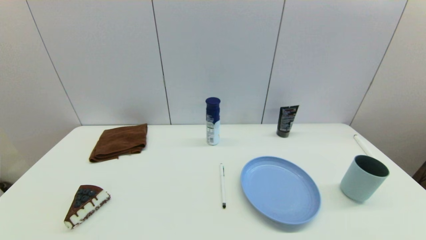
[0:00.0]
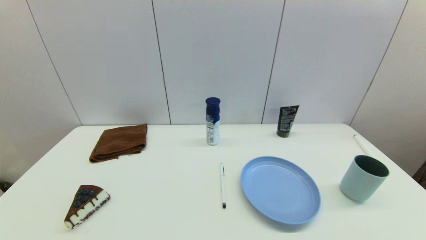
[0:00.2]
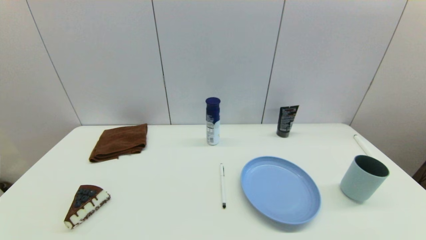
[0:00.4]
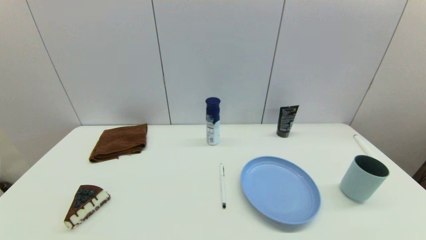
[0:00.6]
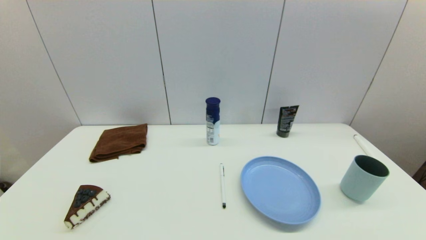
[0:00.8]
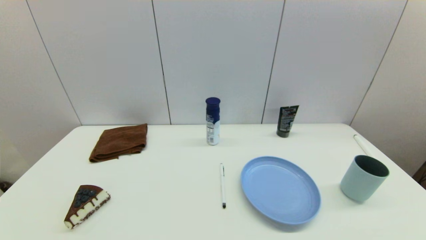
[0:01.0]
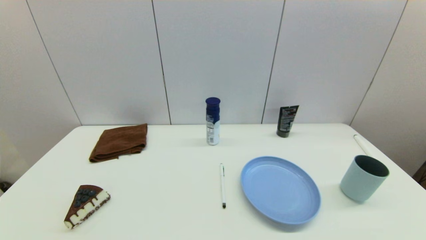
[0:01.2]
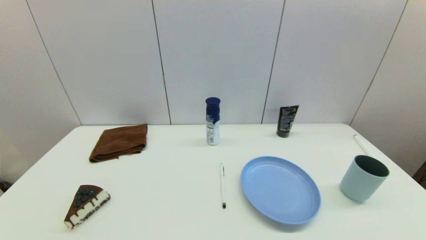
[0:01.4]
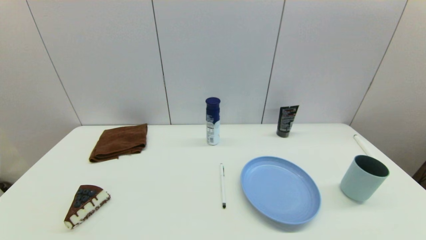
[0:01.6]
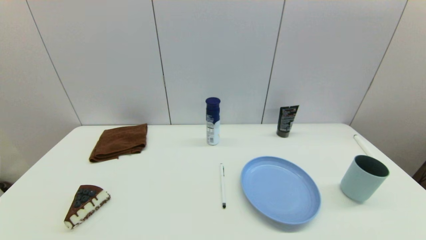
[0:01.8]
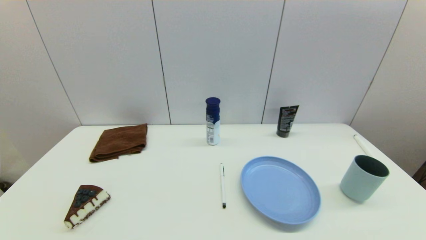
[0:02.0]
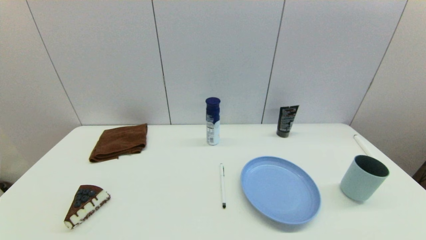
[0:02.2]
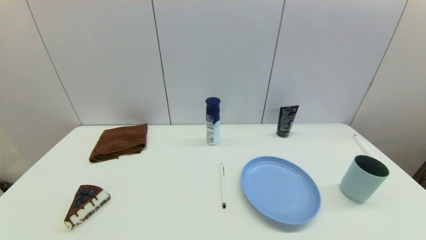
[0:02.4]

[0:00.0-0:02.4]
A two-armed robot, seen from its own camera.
Task of the whole recording: put the pen in the designated position.
0:01.2 to 0:02.4: The two grippers keep their place.

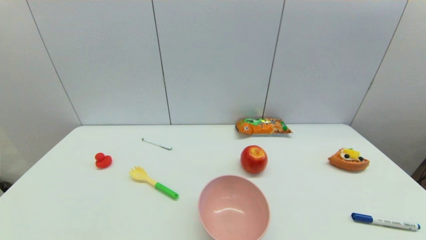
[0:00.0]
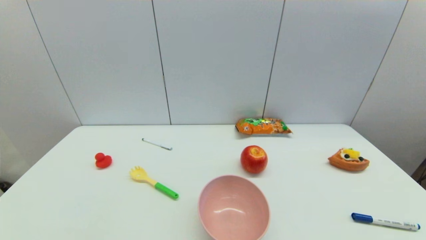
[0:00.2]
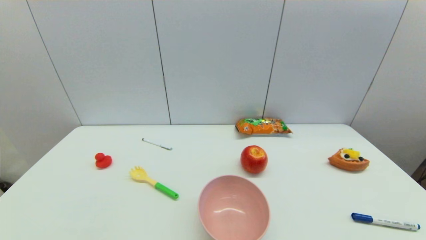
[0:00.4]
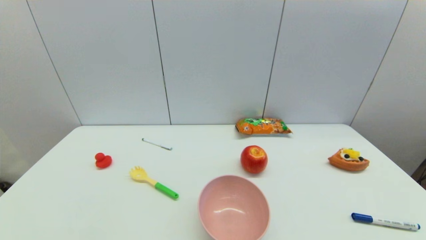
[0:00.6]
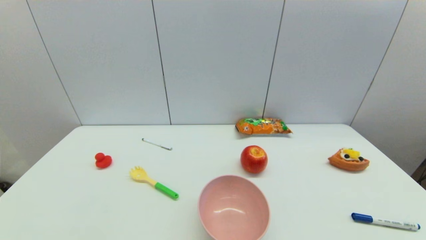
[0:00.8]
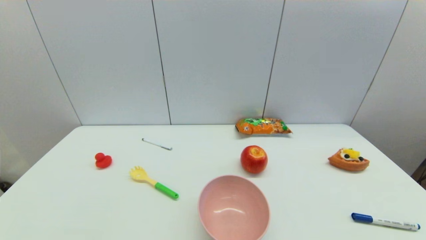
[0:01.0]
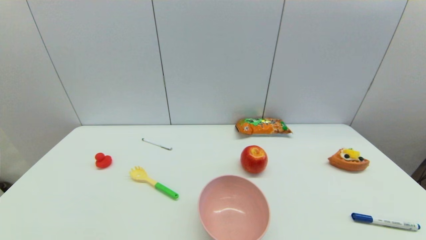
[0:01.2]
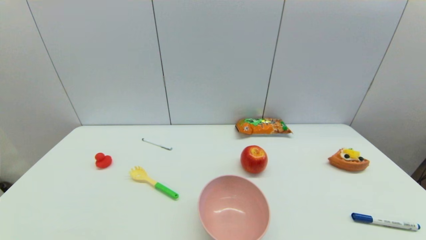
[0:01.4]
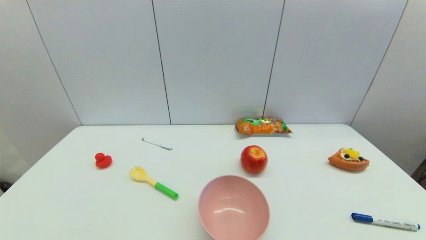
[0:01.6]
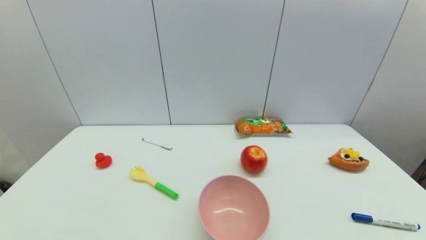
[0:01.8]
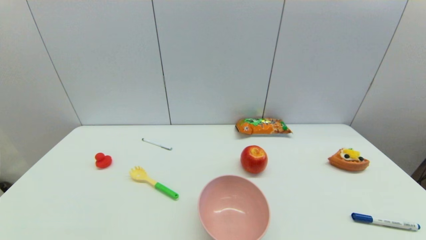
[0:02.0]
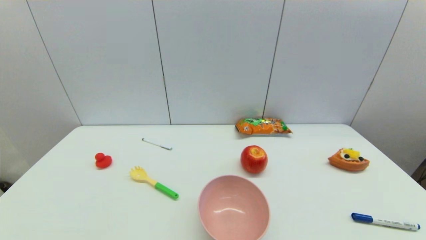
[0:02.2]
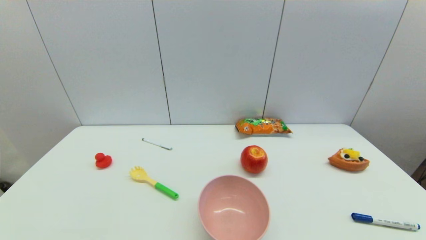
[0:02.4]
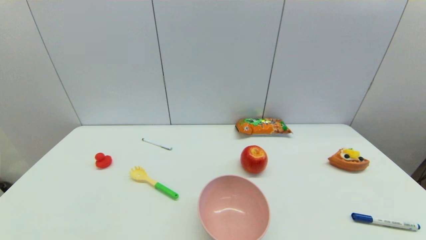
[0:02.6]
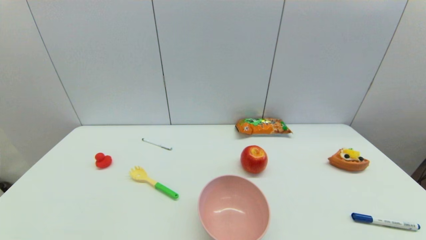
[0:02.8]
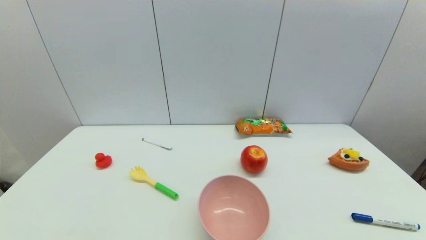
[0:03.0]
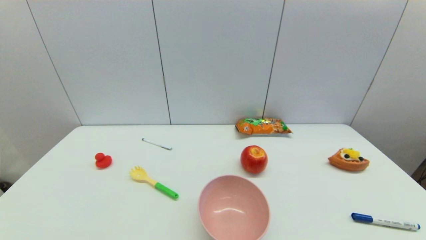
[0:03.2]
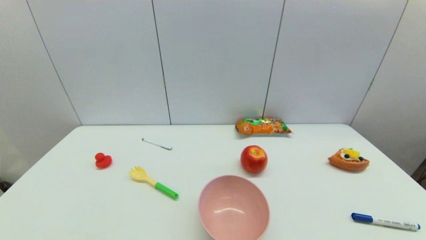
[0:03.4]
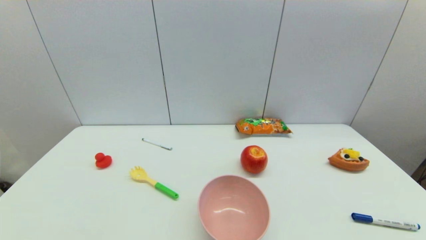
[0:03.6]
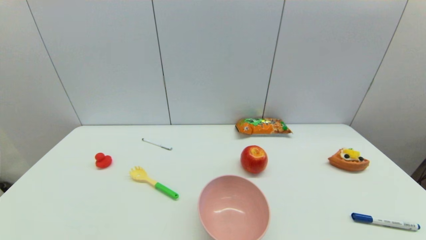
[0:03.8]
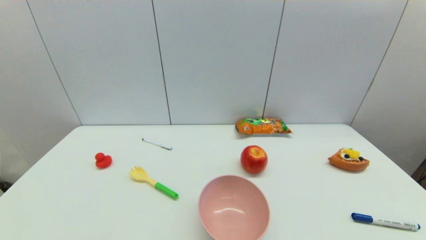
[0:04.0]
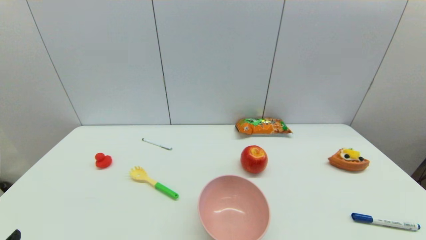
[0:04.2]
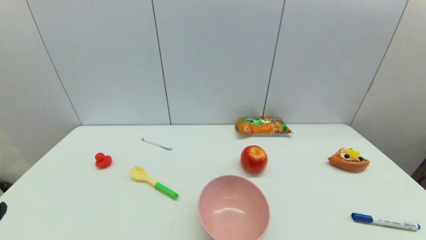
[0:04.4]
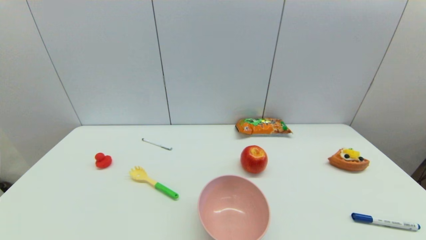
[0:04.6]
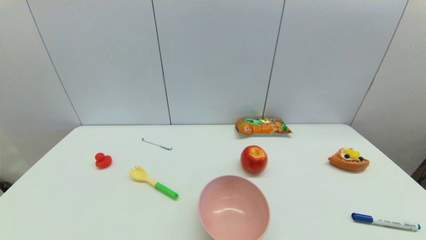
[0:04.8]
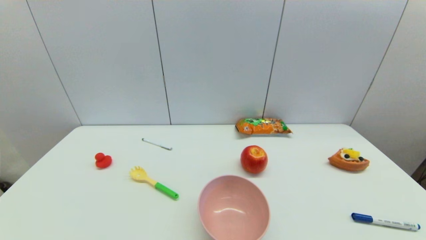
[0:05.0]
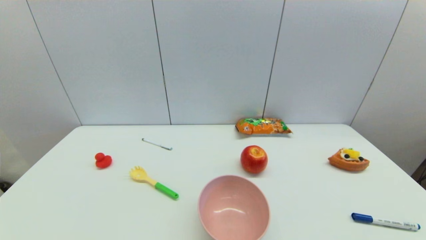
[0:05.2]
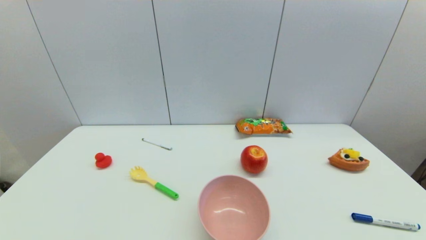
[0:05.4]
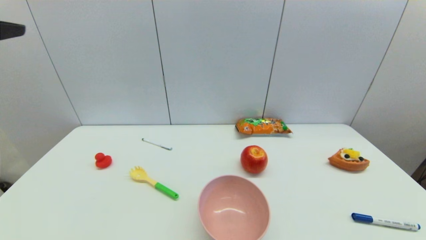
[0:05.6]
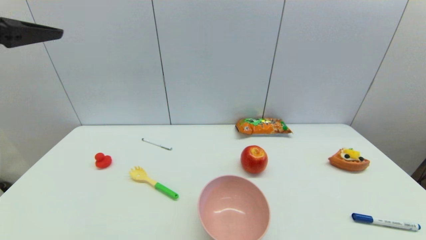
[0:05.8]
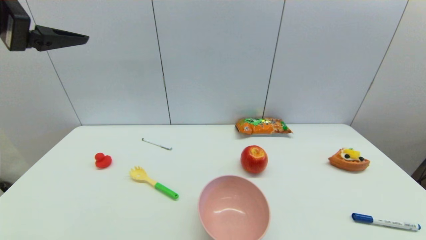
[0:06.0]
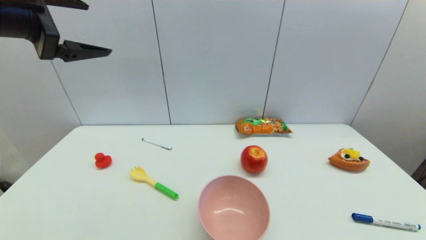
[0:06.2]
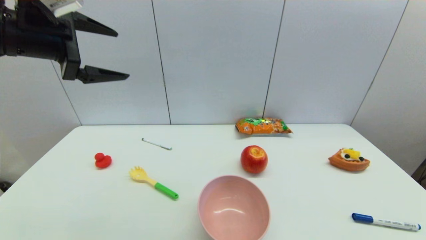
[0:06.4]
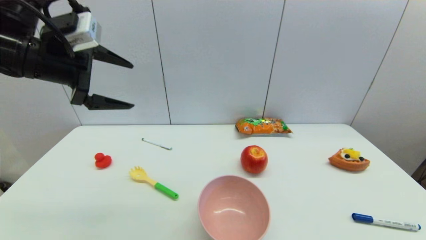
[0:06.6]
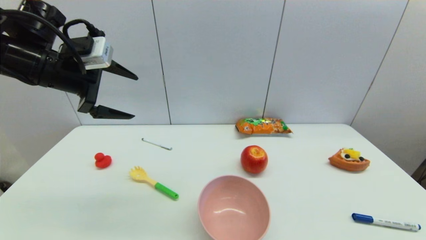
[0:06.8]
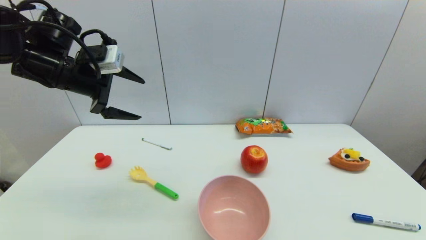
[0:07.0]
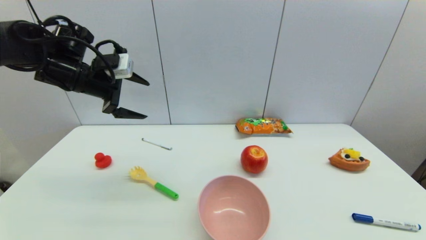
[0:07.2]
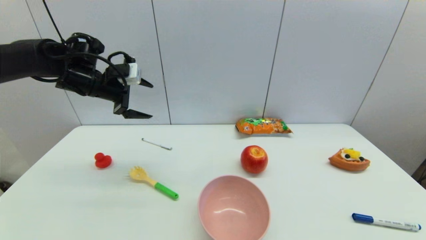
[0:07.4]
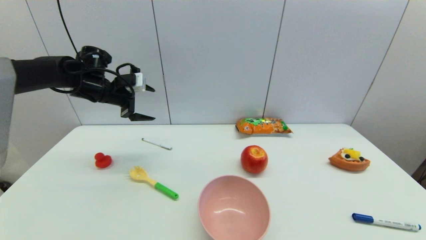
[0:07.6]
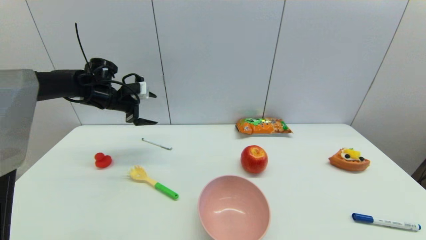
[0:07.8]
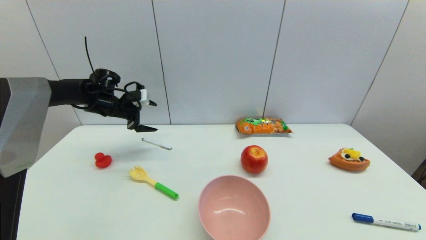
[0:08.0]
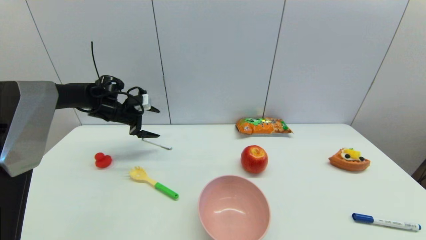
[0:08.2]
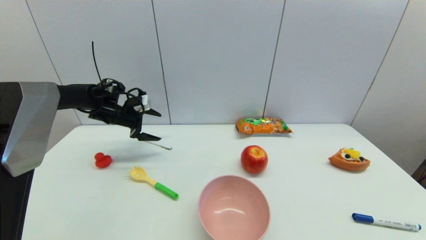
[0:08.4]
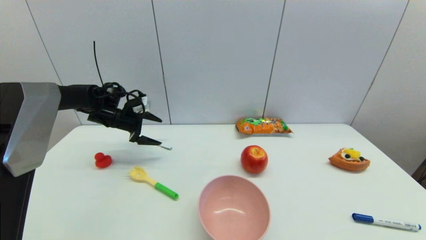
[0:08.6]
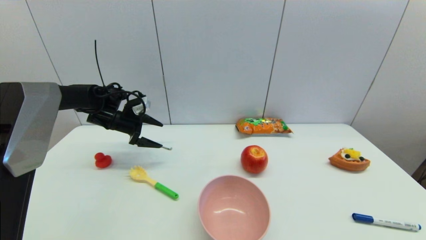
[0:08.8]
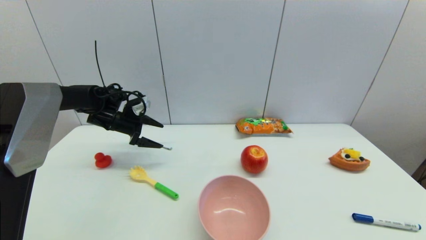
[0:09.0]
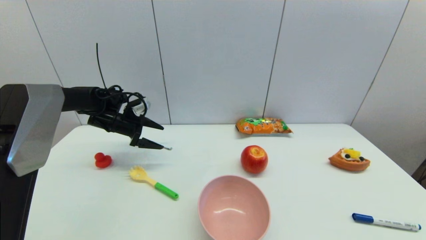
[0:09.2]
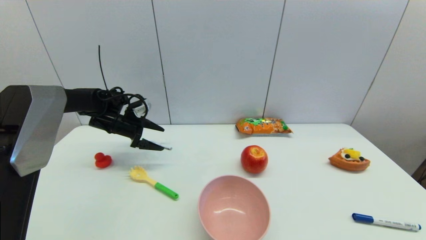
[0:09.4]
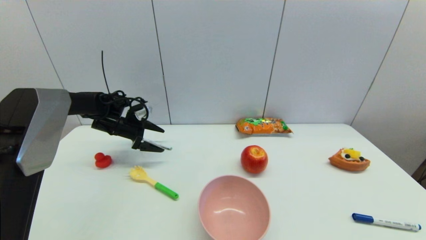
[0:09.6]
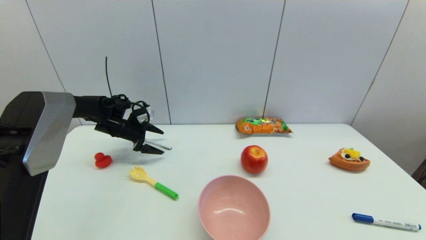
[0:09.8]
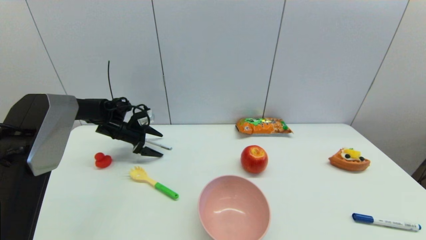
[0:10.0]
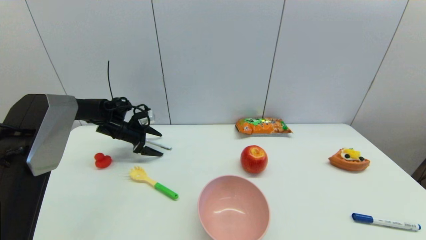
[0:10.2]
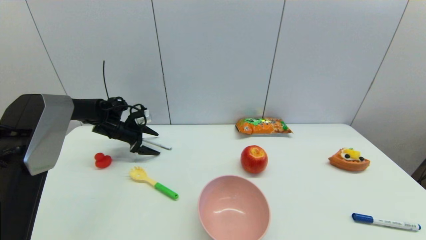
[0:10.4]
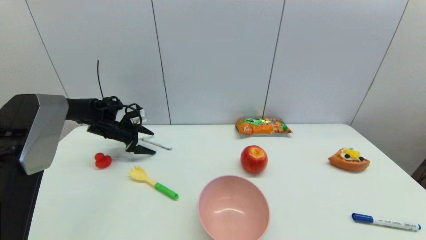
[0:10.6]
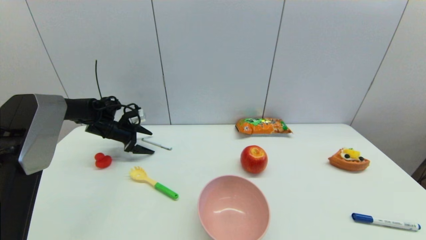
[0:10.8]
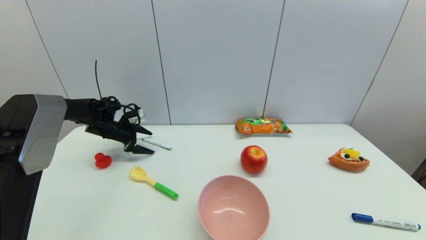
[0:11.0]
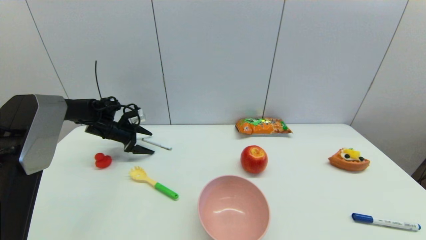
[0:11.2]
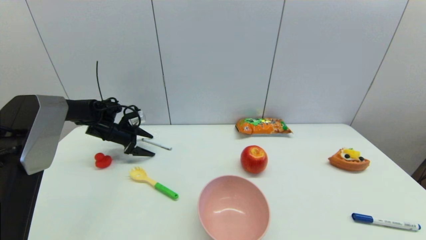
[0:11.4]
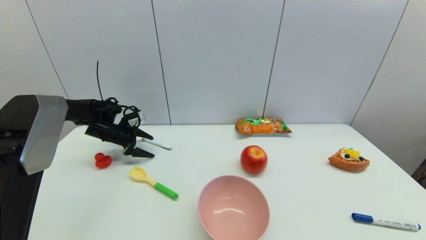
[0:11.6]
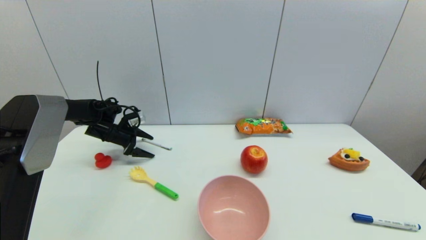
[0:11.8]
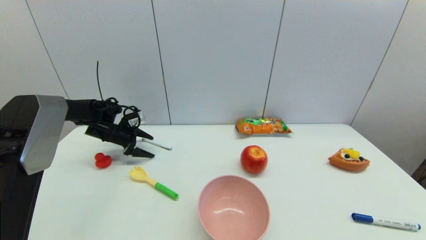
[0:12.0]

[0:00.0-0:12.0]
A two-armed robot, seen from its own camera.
Task of the whole recording: put the pen in the designated position.
0:00.0 to 0:03.0: Both grippers stay about where they are.
0:04.4 to 0:06.0: The left gripper heads upward and forward, covering about 30 cm.
0:06.0 to 0:07.6: The left gripper moves forward and downward, about 30 cm.
0:07.6 to 0:09.0: The left gripper moves downward, some 10 cm.
0:09.0 to 0:10.4: The left gripper is displaced downward by approximately 5 cm.
0:10.4 to 0:12.0: There are only small adjustments of the grippers.

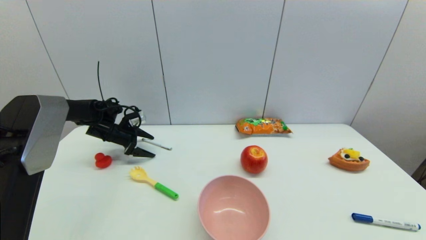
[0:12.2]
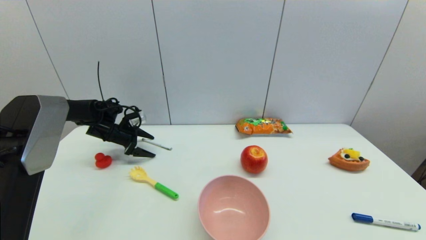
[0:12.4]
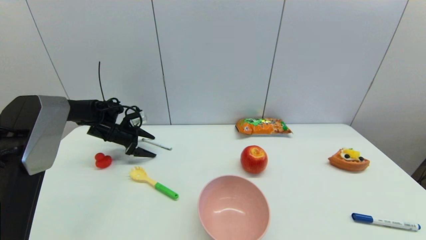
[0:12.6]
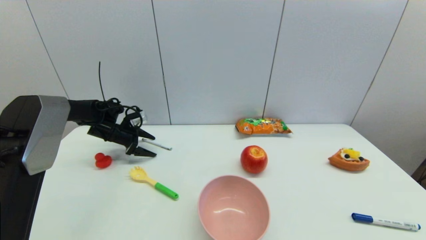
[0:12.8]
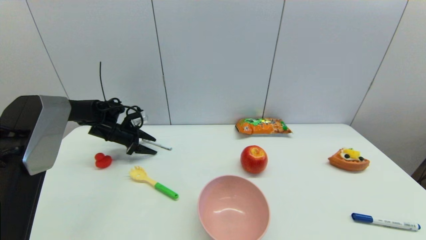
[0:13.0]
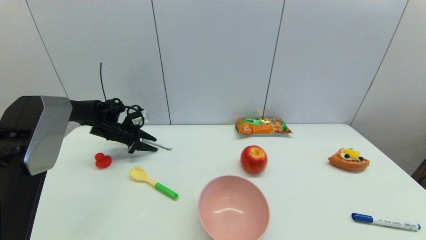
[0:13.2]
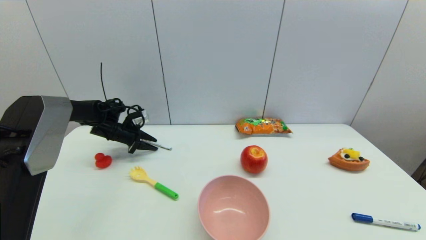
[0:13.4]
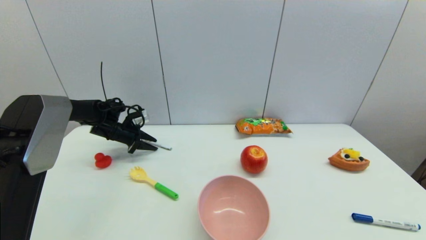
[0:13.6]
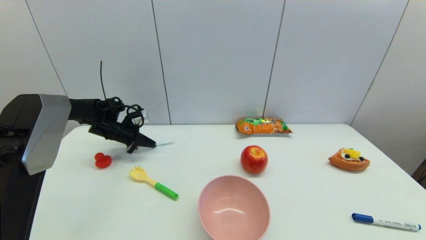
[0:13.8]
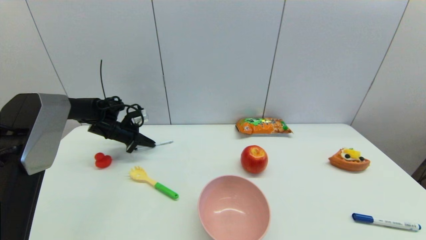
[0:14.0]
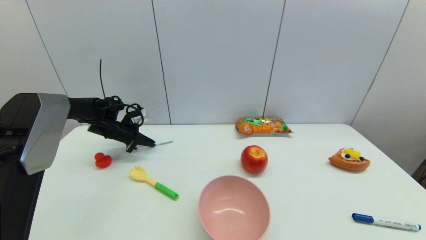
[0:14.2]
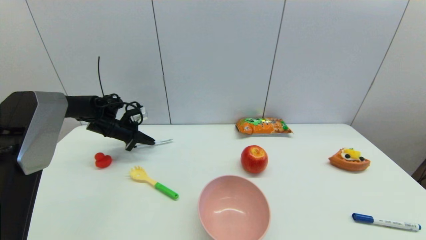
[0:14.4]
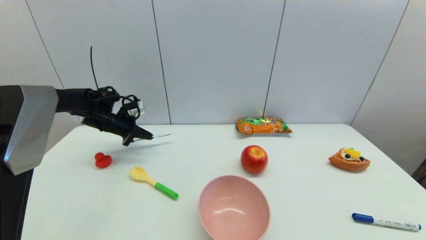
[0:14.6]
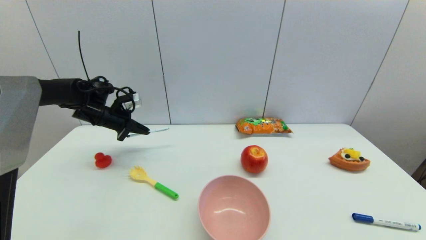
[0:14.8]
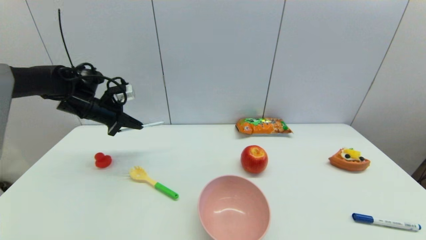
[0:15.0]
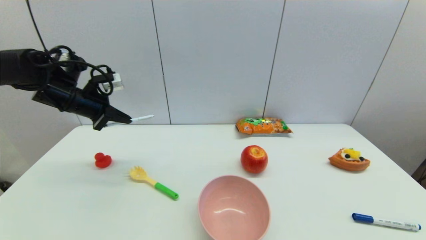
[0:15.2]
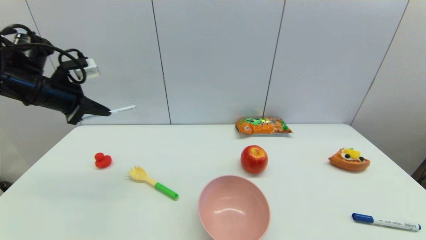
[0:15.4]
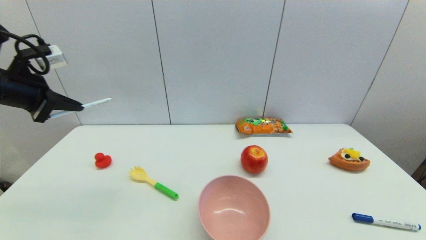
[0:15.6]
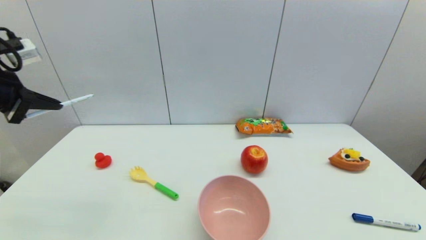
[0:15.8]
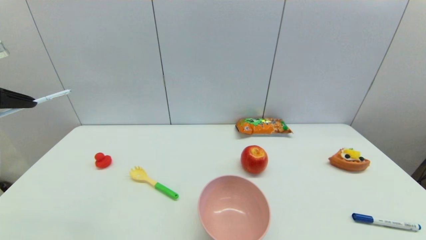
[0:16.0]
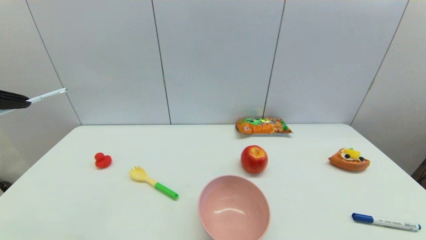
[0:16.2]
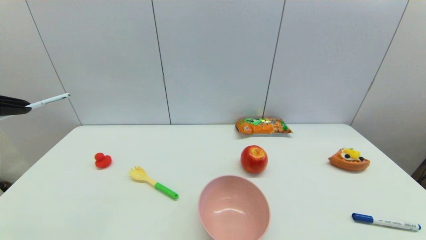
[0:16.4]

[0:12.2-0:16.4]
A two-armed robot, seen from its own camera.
Task of the whole recording: put the pen in the designated position.
0:12.2 to 0:13.6: The left gripper closes its fingers.
0:13.6 to 0:15.0: The left gripper travels upward and backward by some 15 cm, and closes up.
0:15.0 to 0:16.4: The left gripper is displaced backward and upward by some 25 cm.
